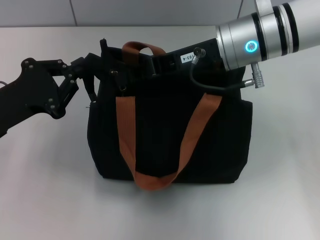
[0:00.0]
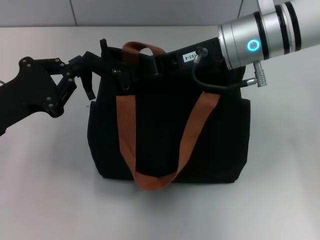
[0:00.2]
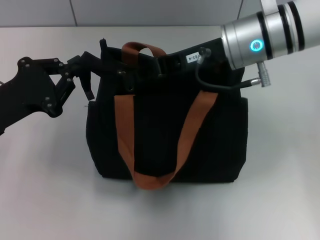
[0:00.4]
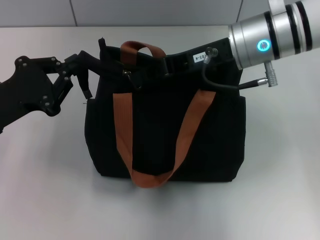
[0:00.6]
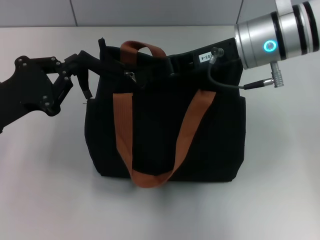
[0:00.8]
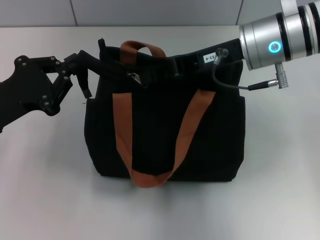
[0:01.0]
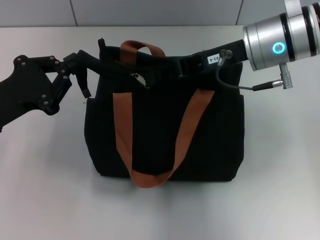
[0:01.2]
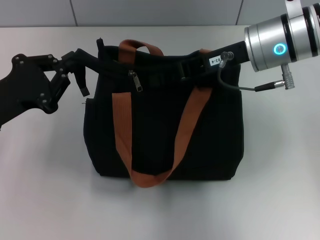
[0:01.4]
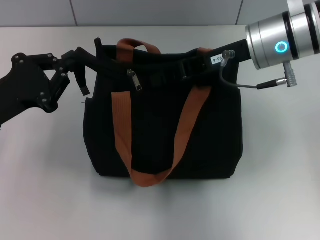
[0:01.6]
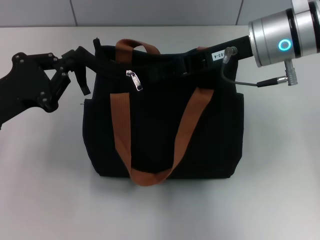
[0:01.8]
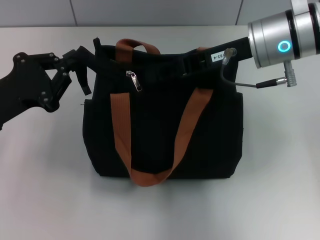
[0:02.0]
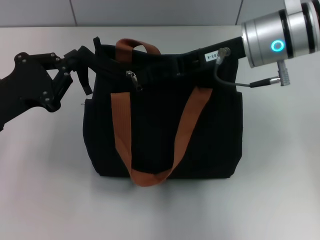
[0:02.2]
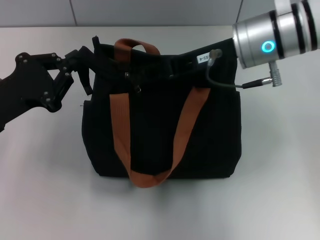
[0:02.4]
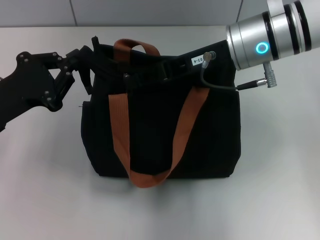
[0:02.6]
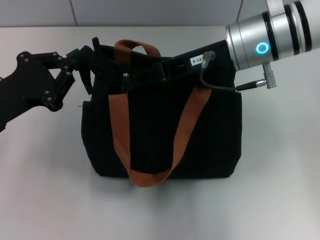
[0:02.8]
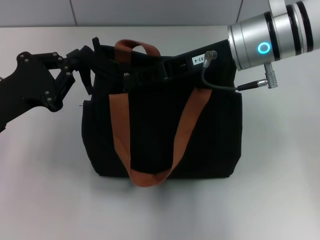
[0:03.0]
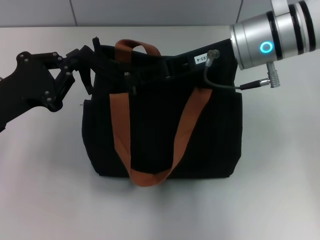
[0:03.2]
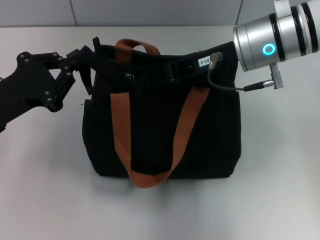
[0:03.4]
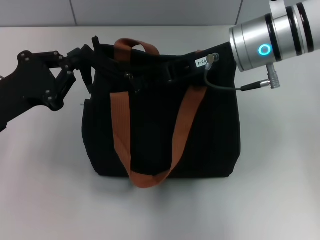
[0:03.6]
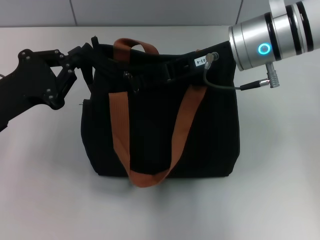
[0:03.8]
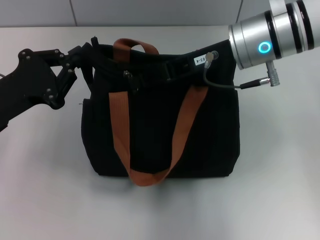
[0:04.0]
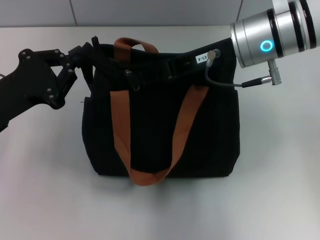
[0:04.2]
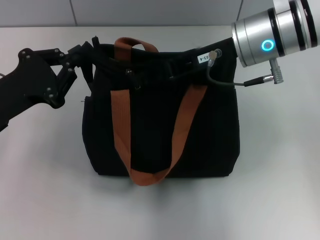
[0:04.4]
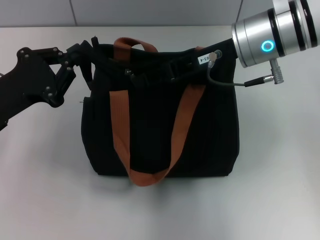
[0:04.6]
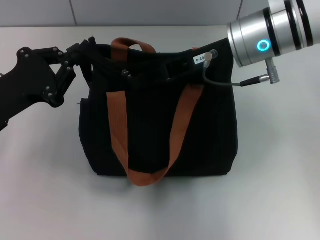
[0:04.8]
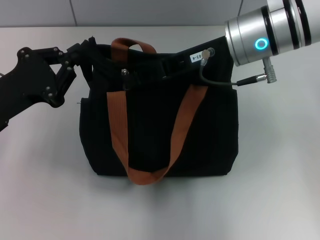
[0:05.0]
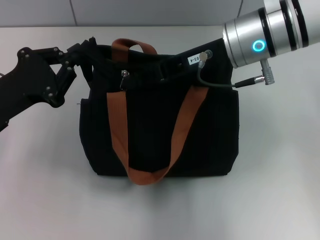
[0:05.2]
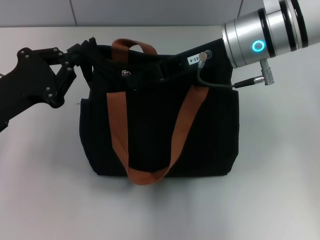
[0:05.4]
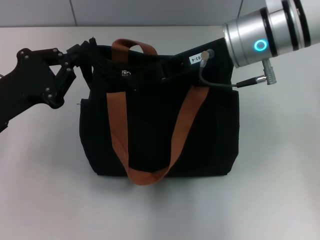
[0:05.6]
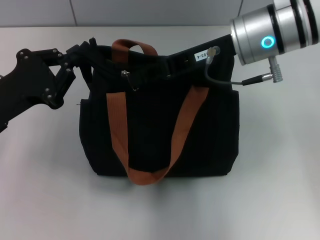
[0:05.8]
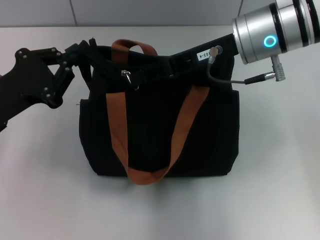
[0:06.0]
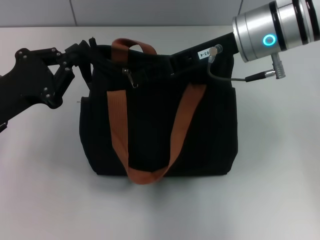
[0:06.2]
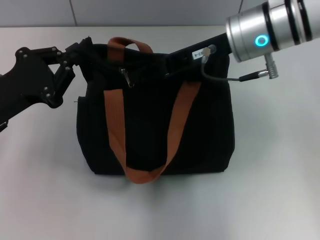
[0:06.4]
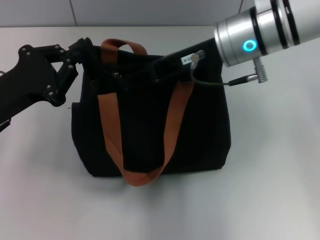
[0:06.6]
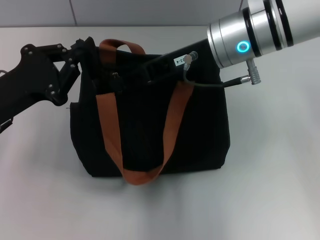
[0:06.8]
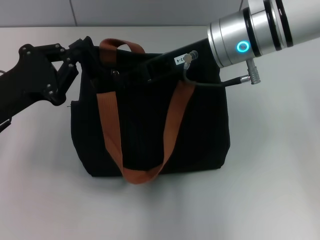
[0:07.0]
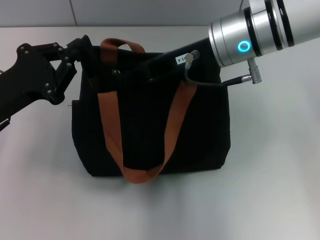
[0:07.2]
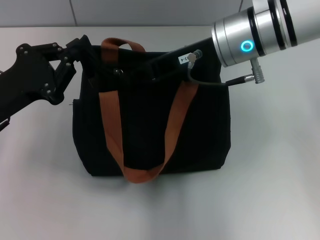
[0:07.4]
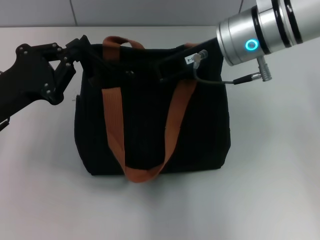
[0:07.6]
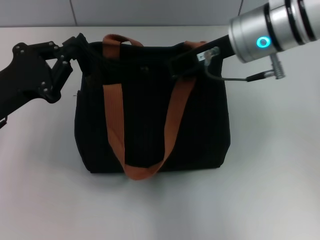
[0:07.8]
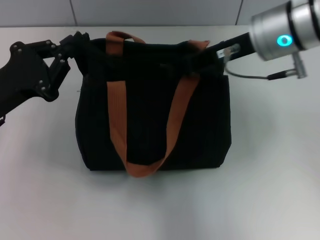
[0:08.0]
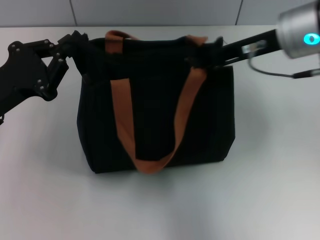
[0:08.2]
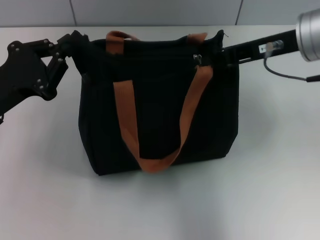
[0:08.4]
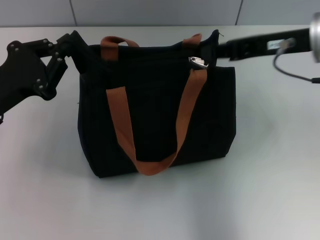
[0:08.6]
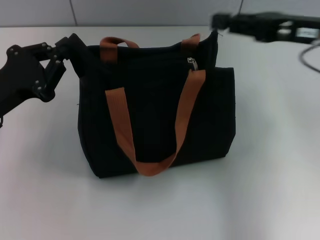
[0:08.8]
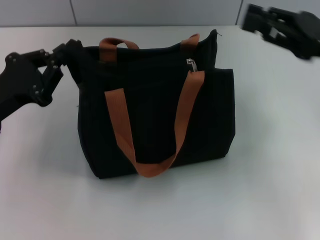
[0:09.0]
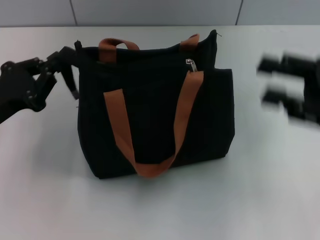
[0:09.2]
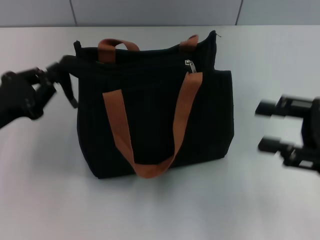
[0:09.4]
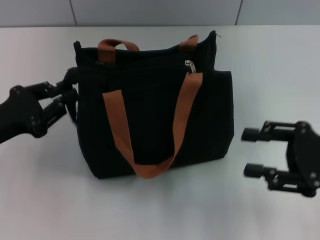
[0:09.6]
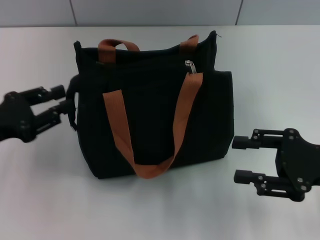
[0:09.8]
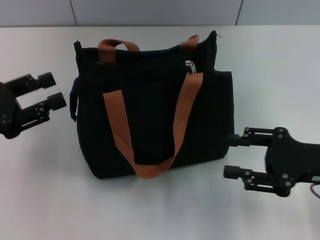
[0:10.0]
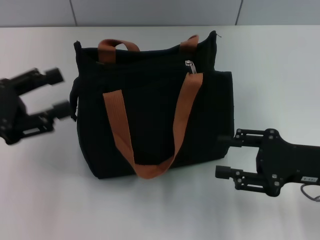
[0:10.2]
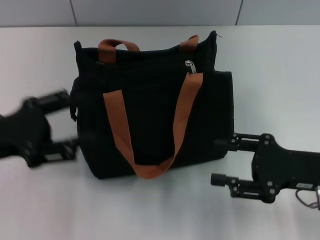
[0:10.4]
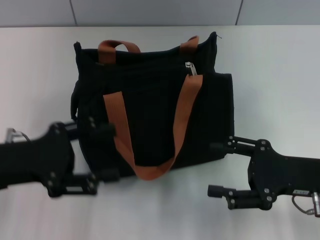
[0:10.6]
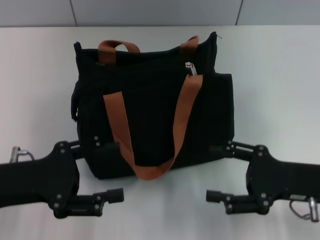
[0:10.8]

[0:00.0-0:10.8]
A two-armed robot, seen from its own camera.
Step, 0:00.0 to 0:08.6: Pull up the zipper with your right hand.
Step, 0:08.8 to 0:10.0: Grab the zipper with your left hand.
0:01.6 to 0:04.6: The grippers make only small movements.
0:04.6 to 0:06.2: The two grippers keep their place.
0:06.2 to 0:07.8: There are only small adjustments of the grippers.
0:07.8 to 0:09.2: The right gripper travels to the right and backward by roughly 20 cm, and opens up.
0:09.2 to 0:10.8: The right gripper heads downward, covering some 10 cm, and opens up; the left gripper ends up roughly 5 cm from where it was, and opens up.

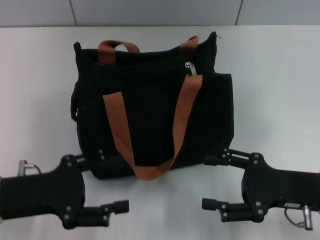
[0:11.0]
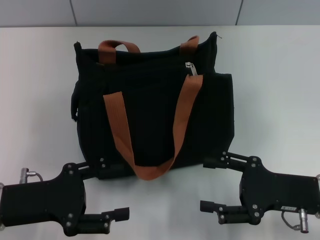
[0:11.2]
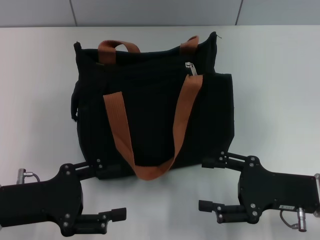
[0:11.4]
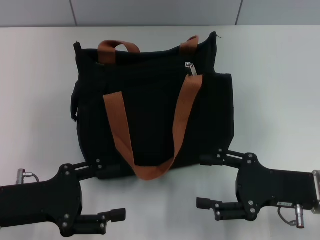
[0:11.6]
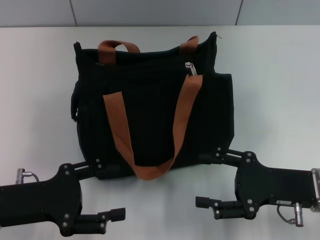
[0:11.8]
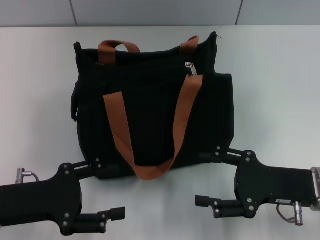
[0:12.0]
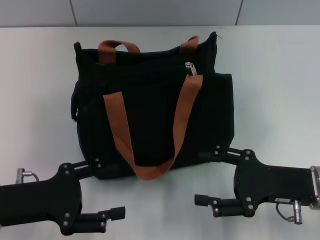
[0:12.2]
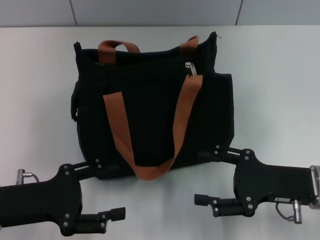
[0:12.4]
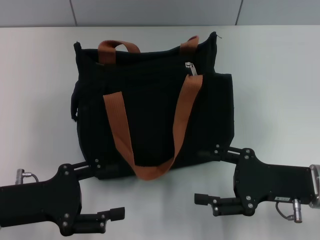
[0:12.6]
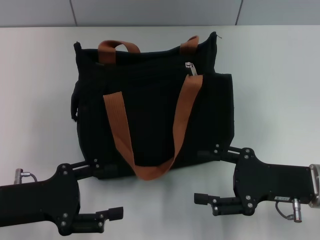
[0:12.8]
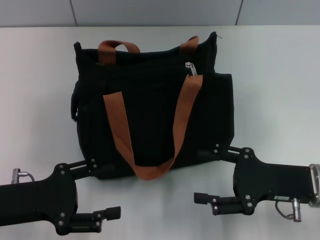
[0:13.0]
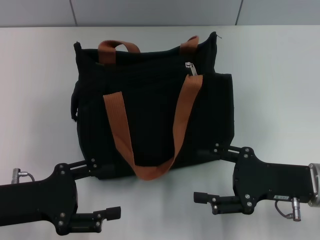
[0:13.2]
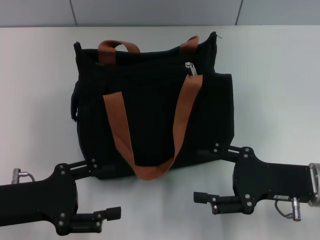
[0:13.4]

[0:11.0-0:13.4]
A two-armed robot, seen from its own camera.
0:11.0 to 0:12.2: The two grippers keep their place.
0:12.2 to 0:13.4: Both grippers stay put.

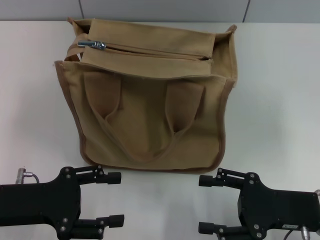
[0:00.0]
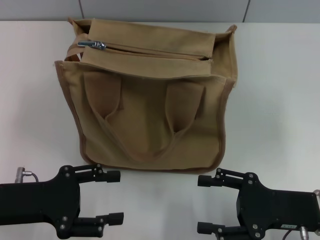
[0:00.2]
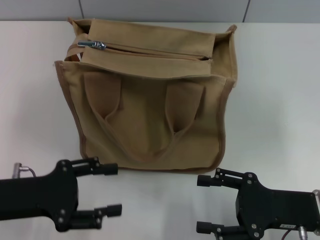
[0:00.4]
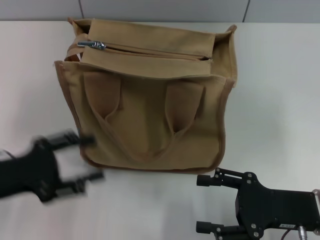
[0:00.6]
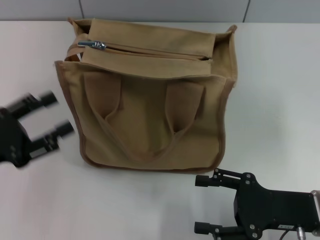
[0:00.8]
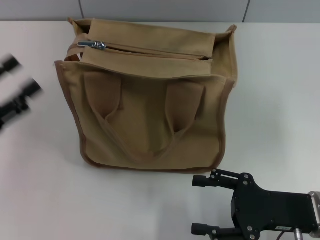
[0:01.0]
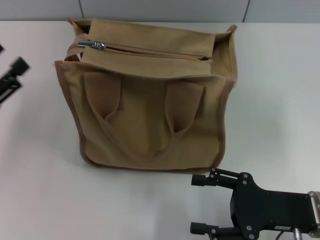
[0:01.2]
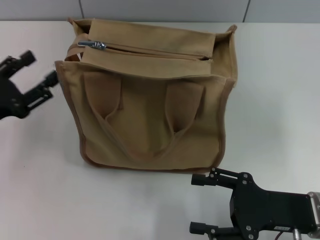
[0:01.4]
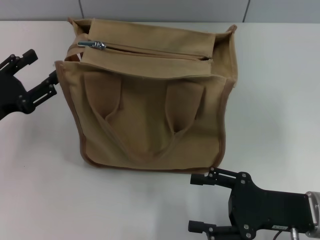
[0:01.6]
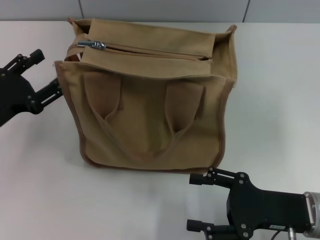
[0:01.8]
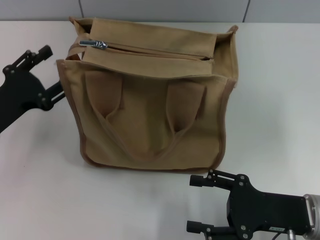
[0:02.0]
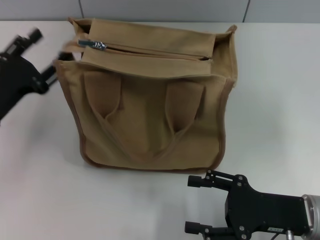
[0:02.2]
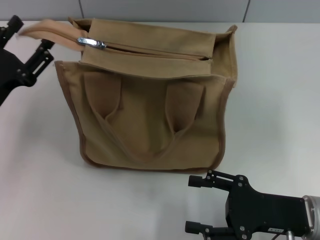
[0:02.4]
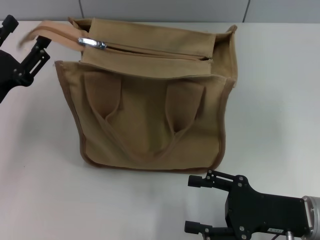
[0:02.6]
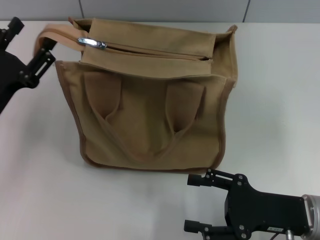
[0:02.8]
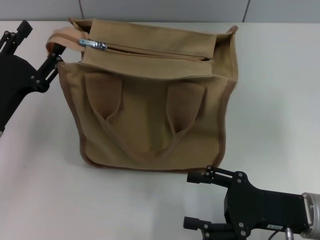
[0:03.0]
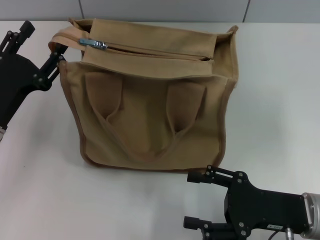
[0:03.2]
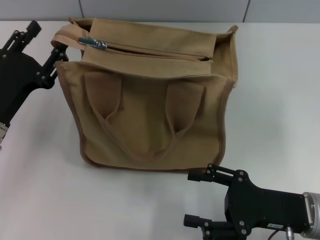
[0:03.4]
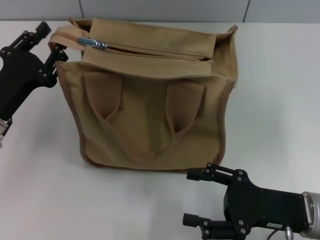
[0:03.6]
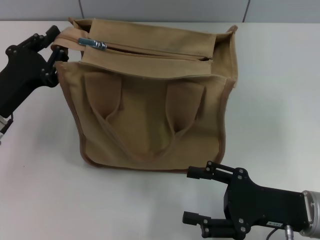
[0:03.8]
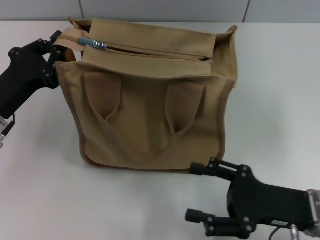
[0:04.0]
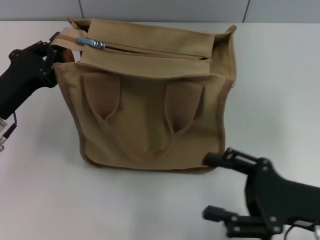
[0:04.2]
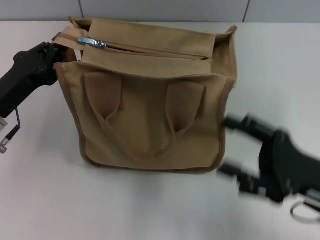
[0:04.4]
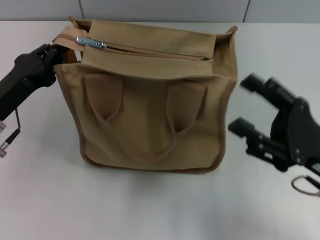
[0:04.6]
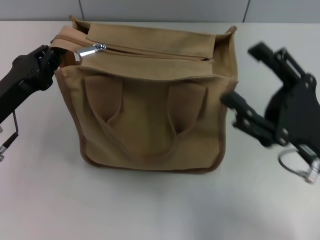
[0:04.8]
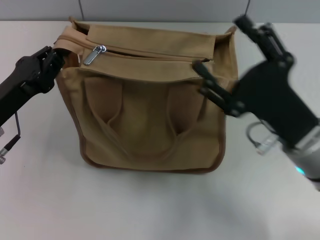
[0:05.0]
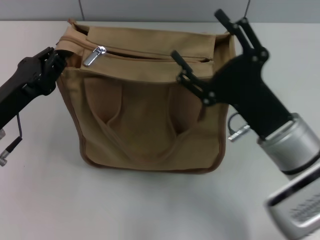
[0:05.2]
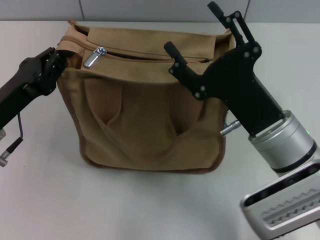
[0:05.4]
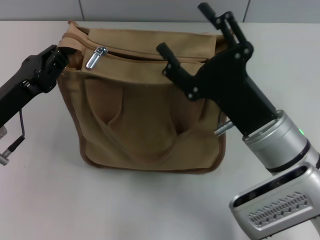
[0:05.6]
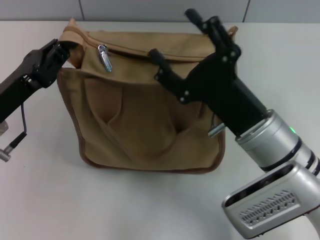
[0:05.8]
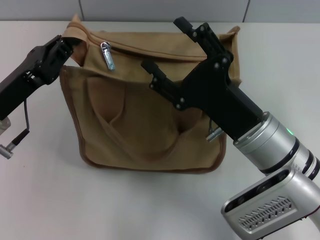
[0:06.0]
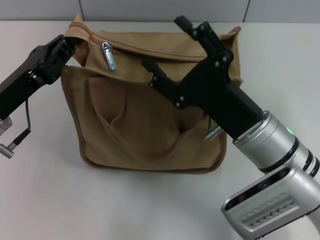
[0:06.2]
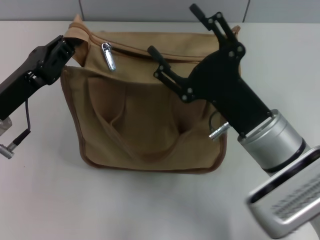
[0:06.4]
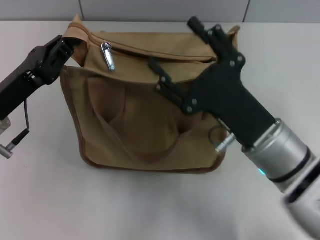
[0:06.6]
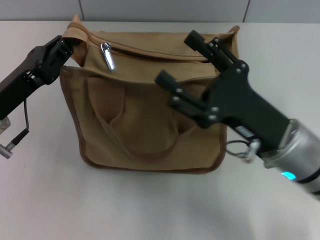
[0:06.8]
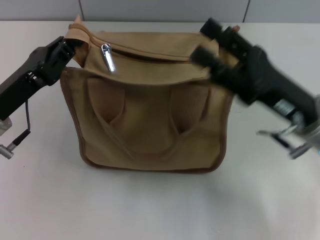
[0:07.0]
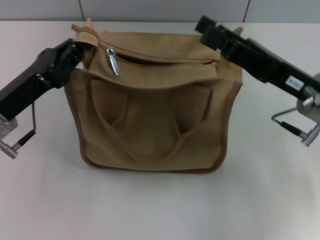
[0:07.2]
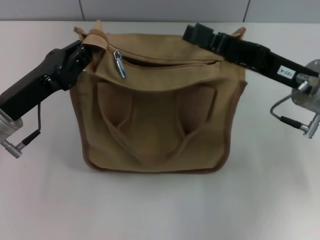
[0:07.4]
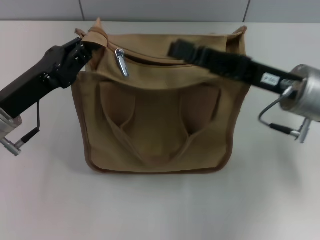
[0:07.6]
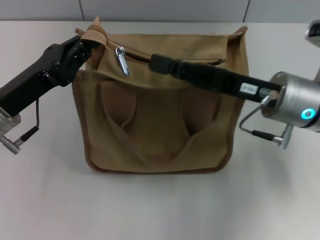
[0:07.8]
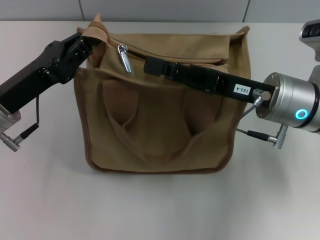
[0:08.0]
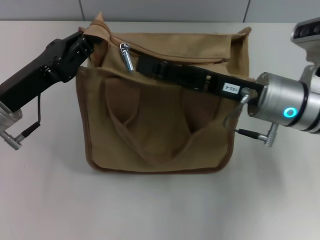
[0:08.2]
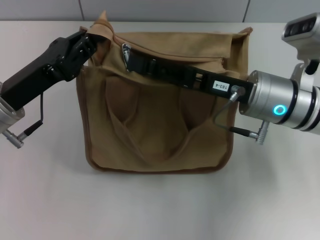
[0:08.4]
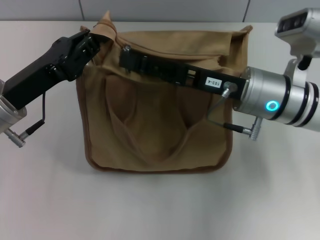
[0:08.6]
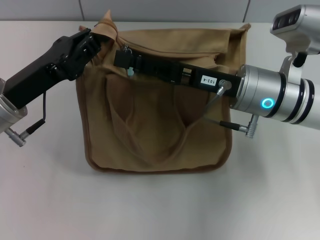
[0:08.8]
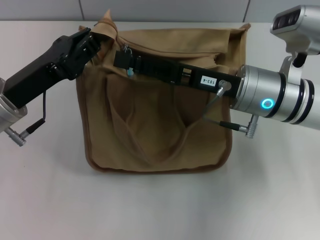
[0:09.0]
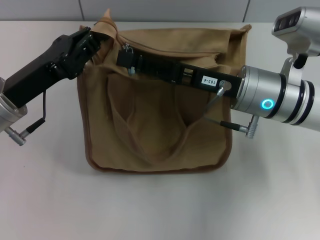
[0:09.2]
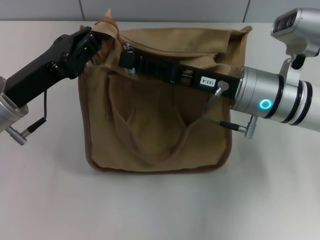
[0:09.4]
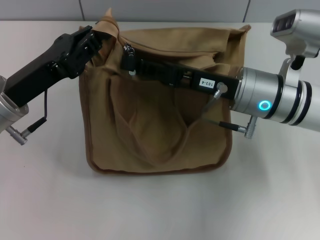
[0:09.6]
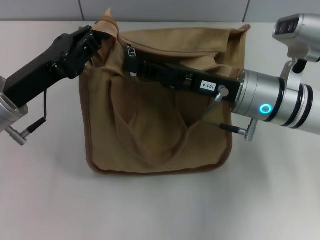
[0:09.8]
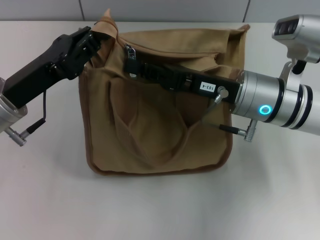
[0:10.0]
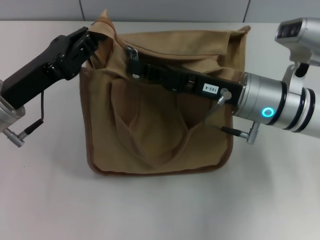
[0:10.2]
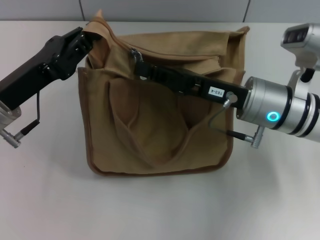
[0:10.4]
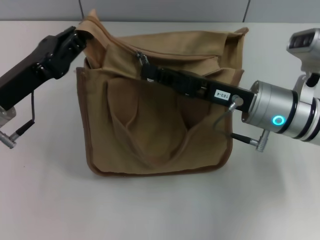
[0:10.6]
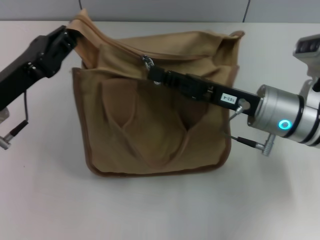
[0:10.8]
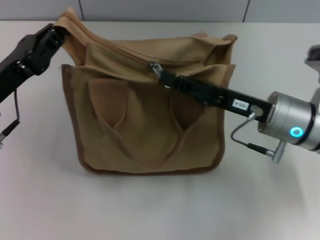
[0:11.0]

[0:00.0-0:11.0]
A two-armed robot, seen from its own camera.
0:00.0 to 0:01.6: The left gripper moves forward, some 5 cm.
0:01.6 to 0:03.2: The grippers make only small movements.
0:03.2 to 0:04.8: The left gripper closes its fingers, while the right gripper is displaced upward by about 5 cm.
0:04.8 to 0:06.2: The right gripper travels to the left by about 10 cm.
0:06.2 to 0:07.8: The right gripper travels forward by approximately 5 cm.
0:09.4 to 0:11.0: The right gripper changes place by some 5 cm, and closes up.
